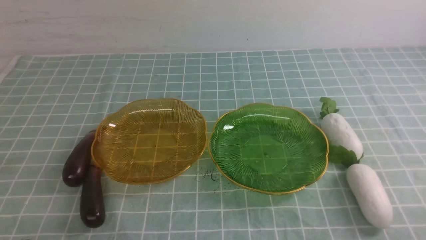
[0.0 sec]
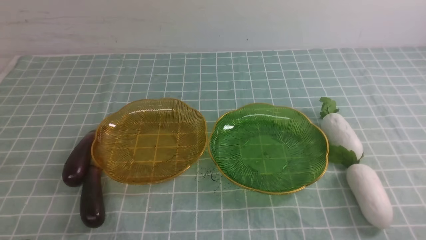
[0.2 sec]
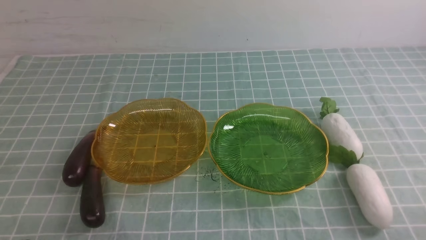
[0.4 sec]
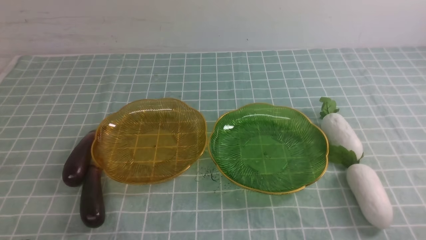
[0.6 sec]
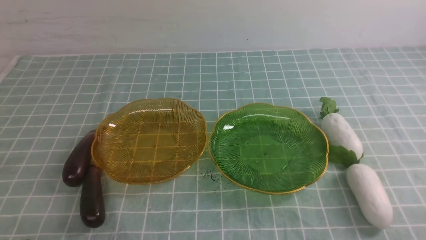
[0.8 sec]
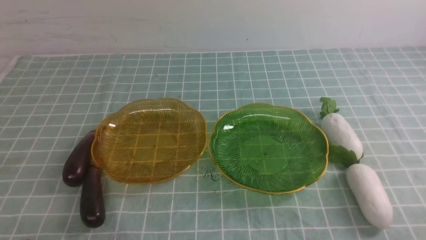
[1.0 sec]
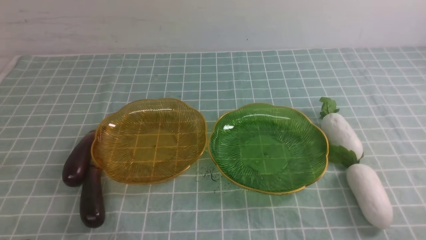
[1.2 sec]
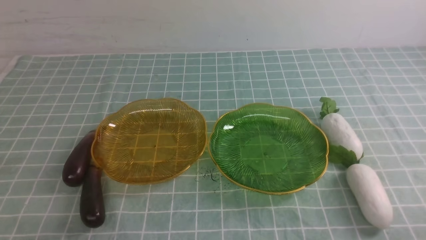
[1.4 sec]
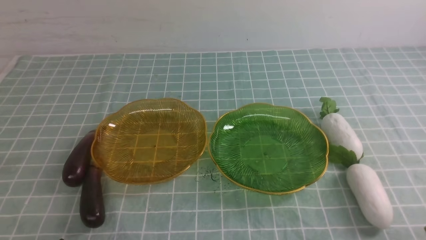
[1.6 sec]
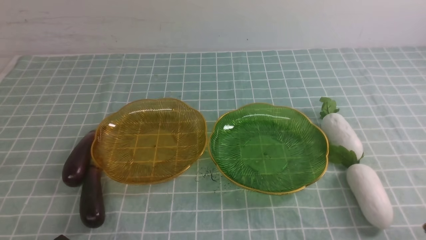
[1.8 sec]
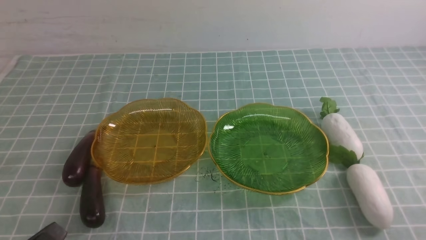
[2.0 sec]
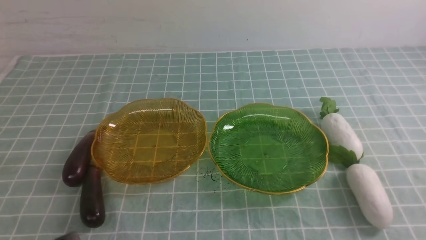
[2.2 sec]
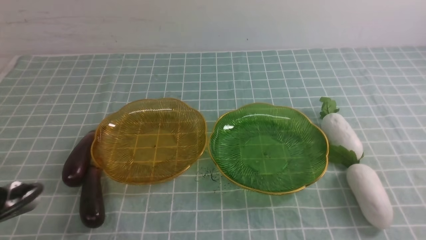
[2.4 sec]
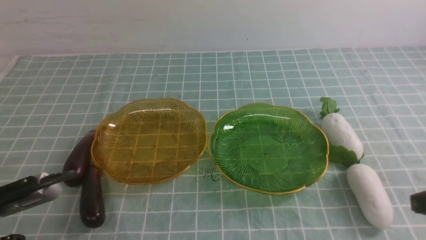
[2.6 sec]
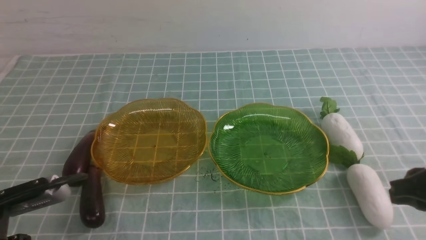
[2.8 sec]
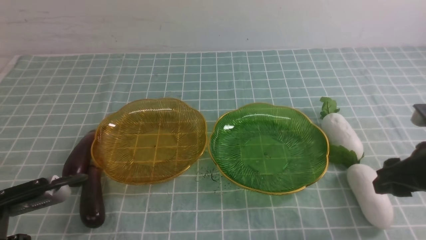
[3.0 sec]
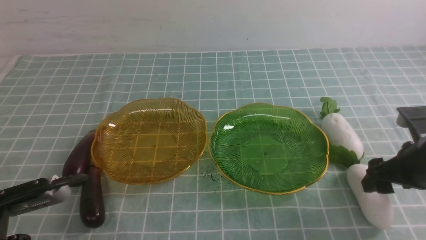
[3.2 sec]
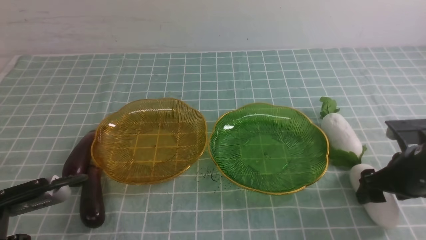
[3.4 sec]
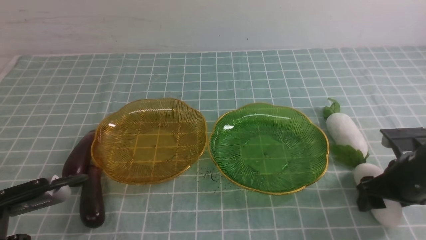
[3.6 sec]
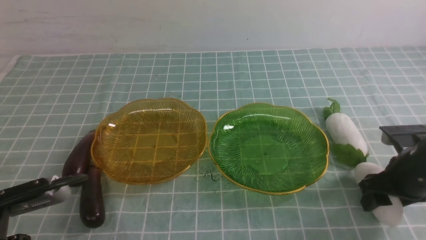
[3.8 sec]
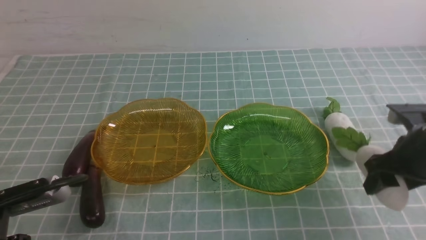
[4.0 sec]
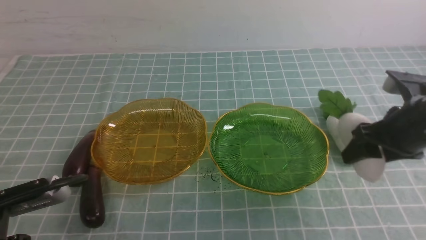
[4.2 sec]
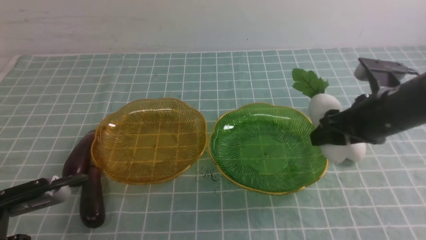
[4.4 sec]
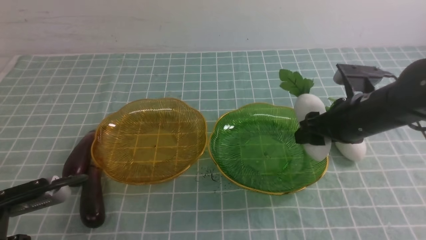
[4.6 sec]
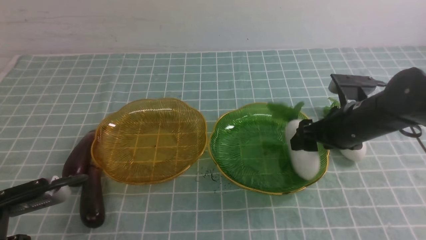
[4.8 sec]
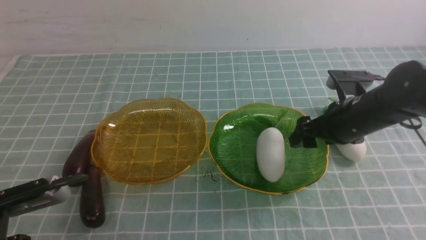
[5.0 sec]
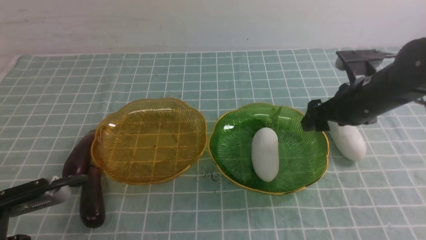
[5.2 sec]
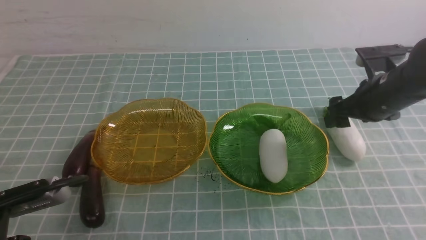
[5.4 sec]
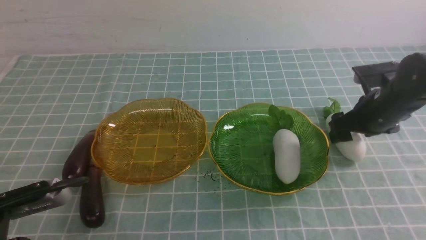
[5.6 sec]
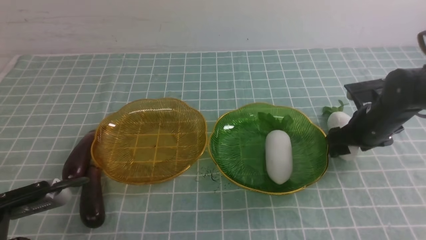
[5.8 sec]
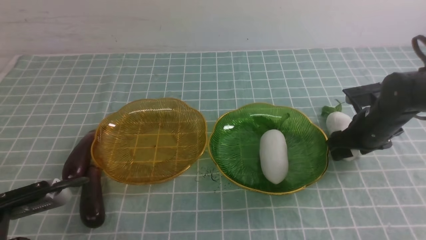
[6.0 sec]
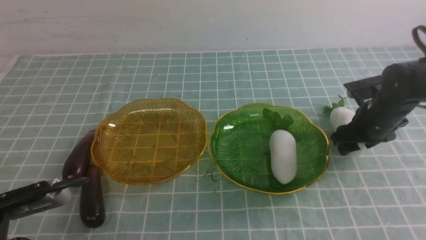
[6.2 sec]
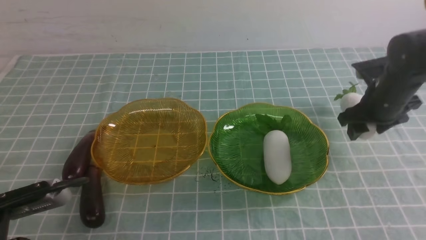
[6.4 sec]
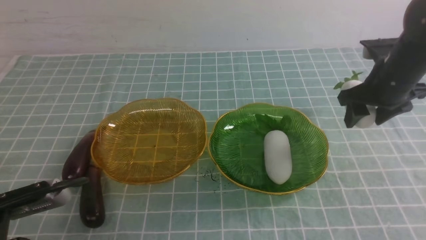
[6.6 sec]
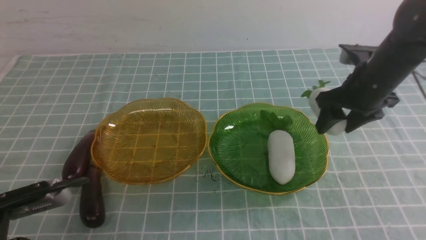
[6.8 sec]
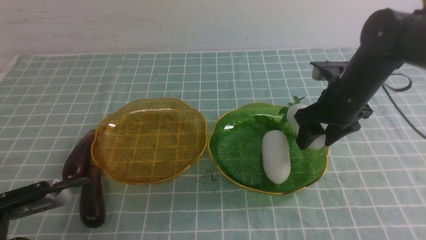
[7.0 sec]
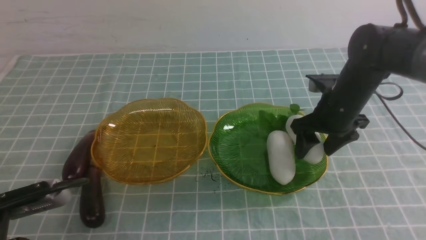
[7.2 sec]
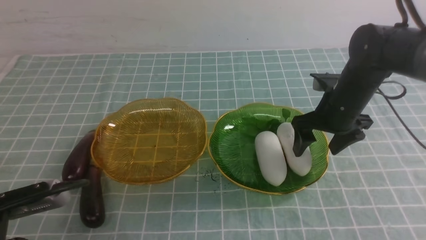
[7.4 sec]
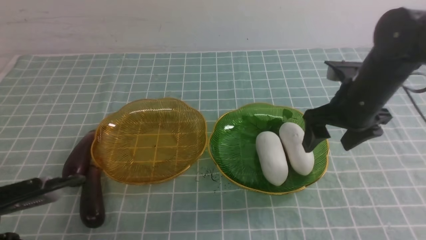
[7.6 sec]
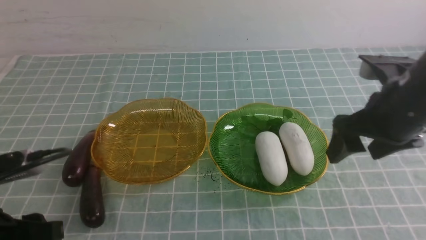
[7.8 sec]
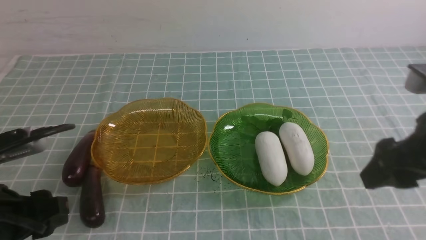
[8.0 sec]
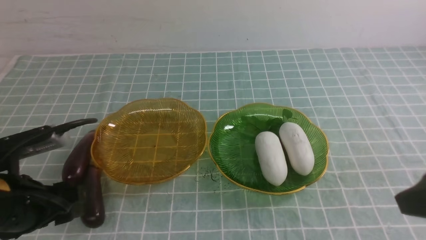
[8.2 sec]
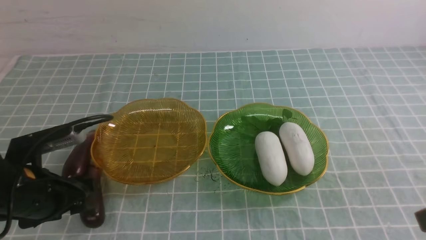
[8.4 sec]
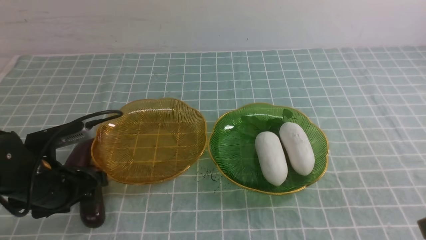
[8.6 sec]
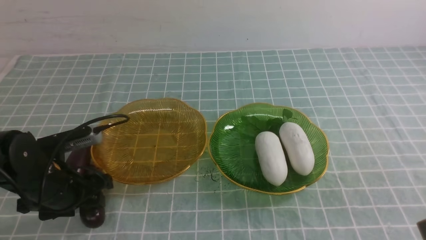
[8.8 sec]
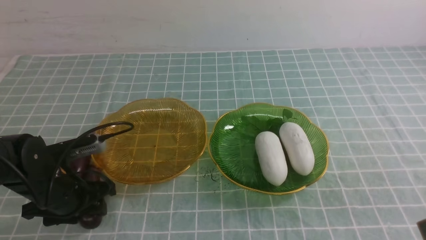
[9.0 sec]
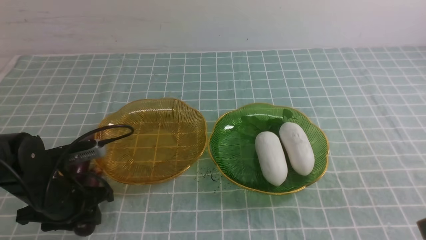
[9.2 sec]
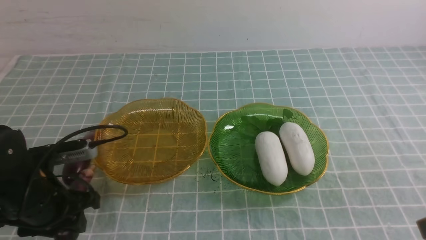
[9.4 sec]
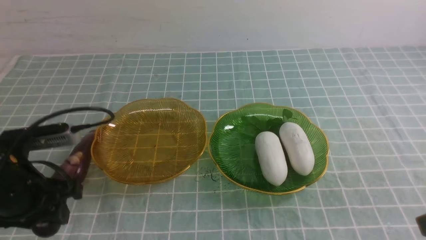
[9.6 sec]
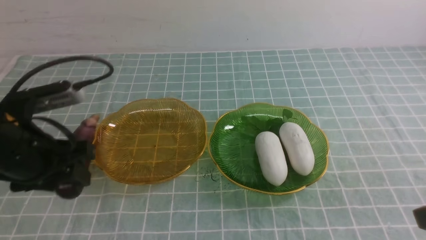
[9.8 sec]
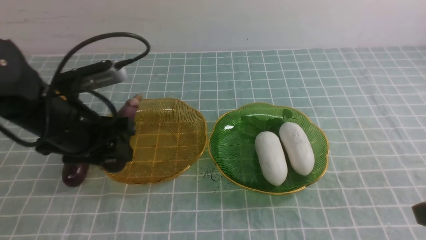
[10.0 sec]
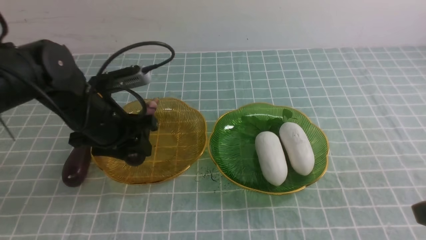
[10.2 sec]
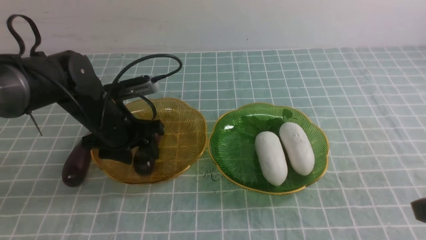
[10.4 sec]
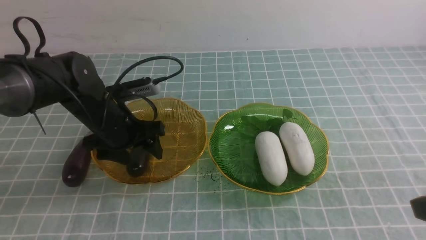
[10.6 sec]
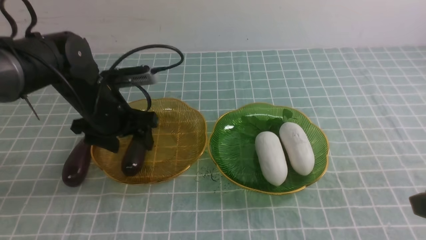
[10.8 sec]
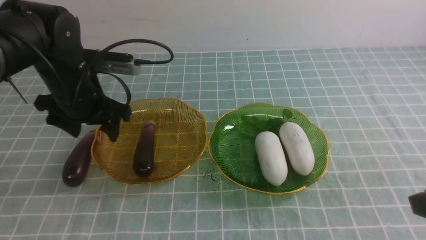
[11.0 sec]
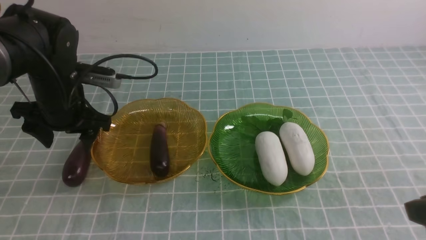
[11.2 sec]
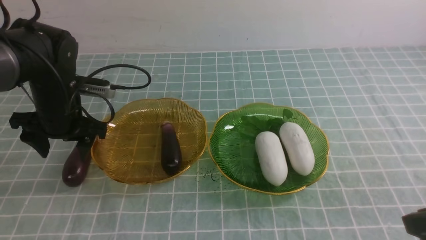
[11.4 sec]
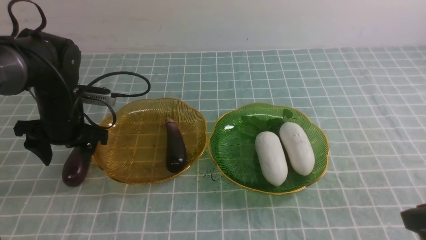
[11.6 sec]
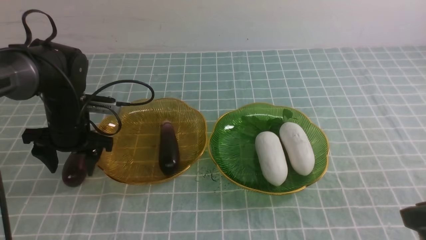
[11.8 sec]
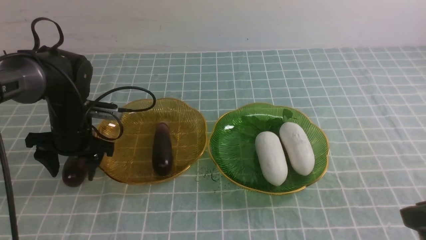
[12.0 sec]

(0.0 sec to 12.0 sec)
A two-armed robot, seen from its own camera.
Step, 0.0 sec - 7.4 sec: use the right arm to grab a radish and put it into the right plate.
Step, 7.6 sec - 10.6 sec: use the left arm to grab an eggplant and put it into the left plate.
1.6 sec - 3.0 sec: The right gripper heads forward, covering roughly 20 cm, and opens up, while the left gripper shifts some 10 cm forward and upward.
3.0 sec - 4.4 sec: The right gripper travels forward and to the left by some 10 cm, and moves approximately 5 cm downward and comes back.
4.4 sec - 6.0 sec: The right gripper moves downward and forward, some 10 cm.
6.0 sec - 7.6 sec: The right gripper goes approximately 15 cm upward, to the left and backward.
7.6 sec - 9.0 sec: The left gripper heads forward and downward, covering roughly 15 cm. Meanwhile the right gripper is displaced backward by roughly 20 cm, and closes.
9.0 sec - 10.4 sec: The left gripper heads forward, to the right and upward, covering about 15 cm.
10.4 sec - 12.0 sec: The left gripper is displaced to the left by some 5 cm.

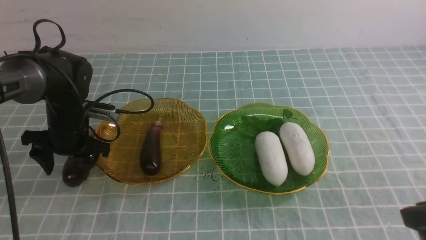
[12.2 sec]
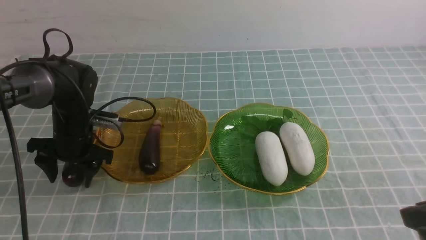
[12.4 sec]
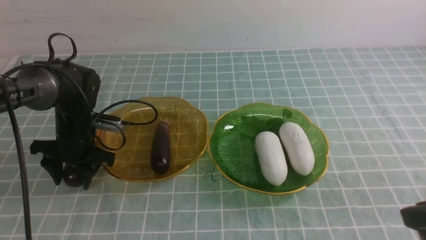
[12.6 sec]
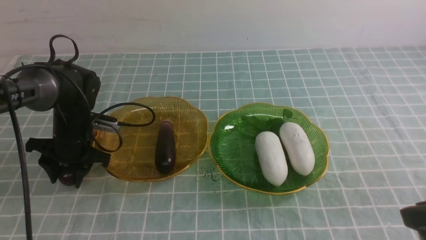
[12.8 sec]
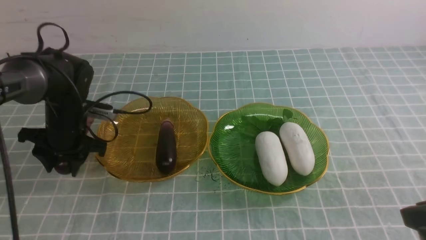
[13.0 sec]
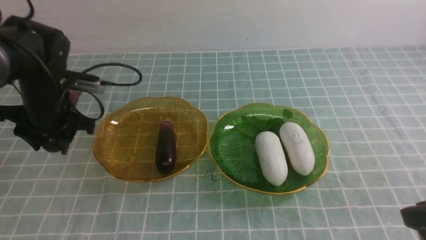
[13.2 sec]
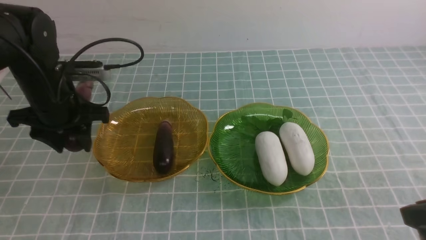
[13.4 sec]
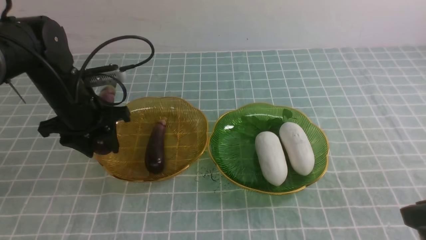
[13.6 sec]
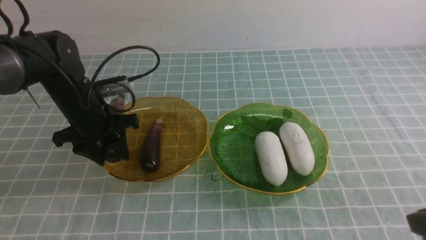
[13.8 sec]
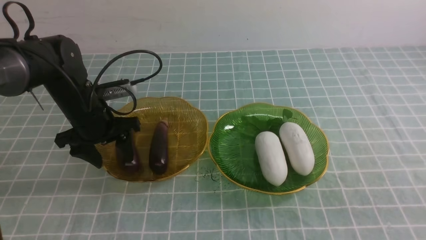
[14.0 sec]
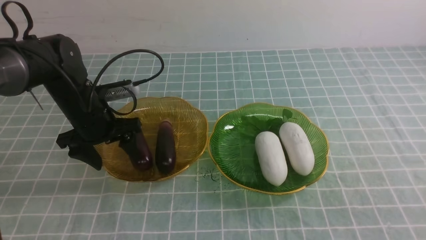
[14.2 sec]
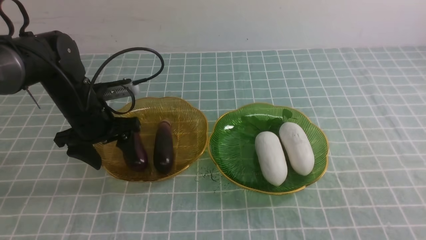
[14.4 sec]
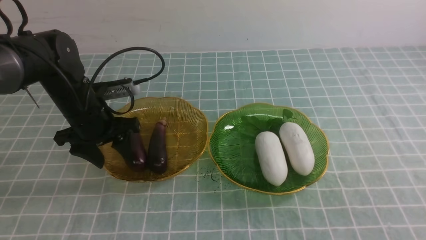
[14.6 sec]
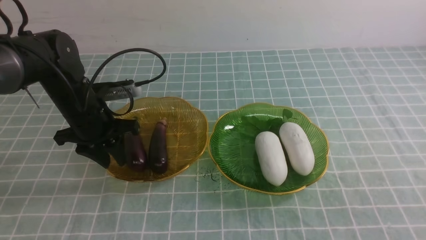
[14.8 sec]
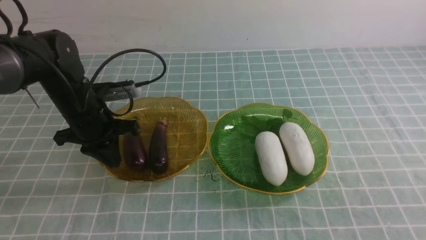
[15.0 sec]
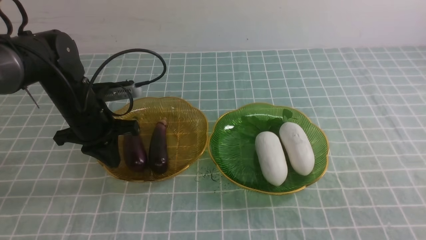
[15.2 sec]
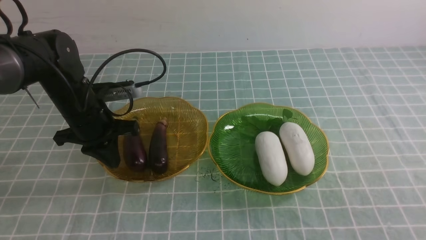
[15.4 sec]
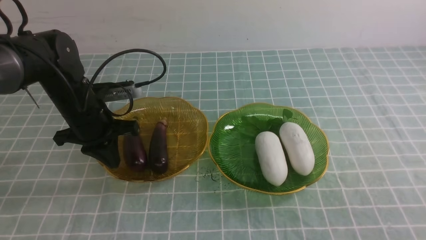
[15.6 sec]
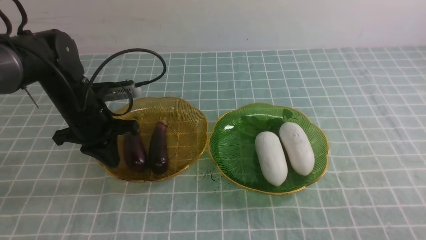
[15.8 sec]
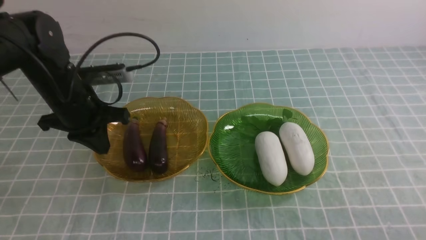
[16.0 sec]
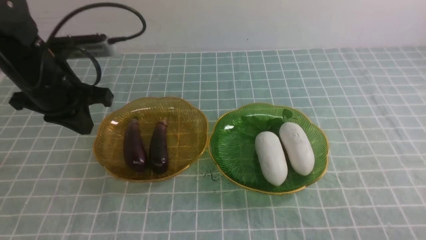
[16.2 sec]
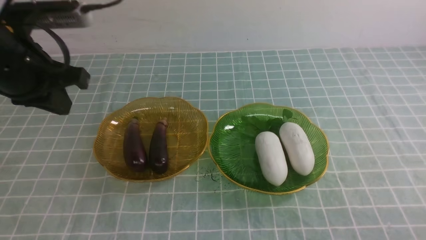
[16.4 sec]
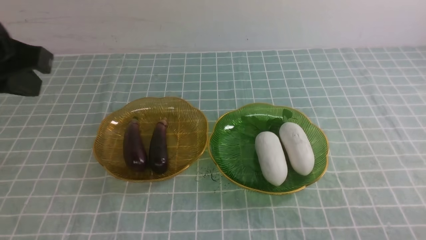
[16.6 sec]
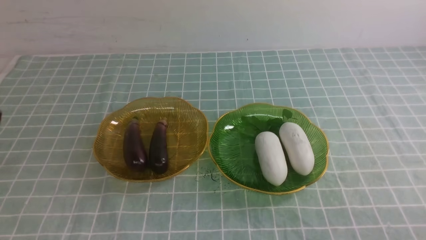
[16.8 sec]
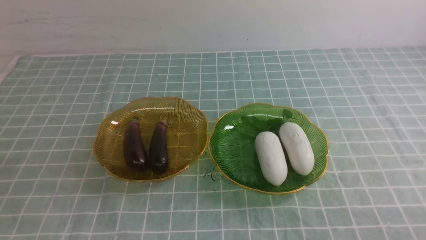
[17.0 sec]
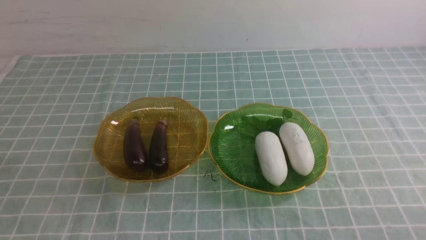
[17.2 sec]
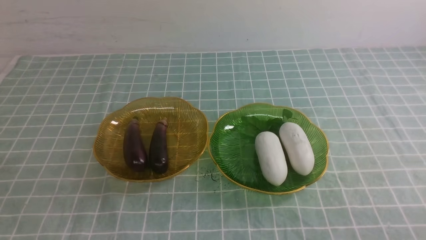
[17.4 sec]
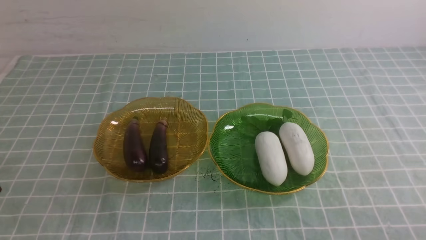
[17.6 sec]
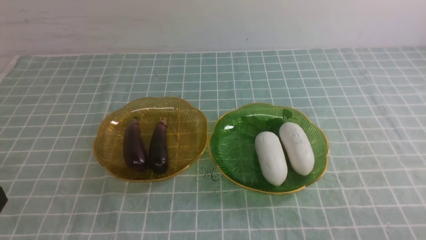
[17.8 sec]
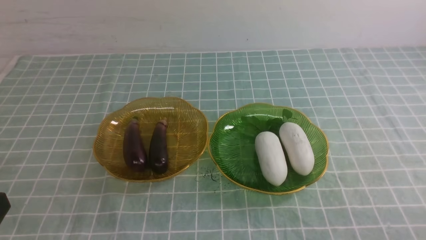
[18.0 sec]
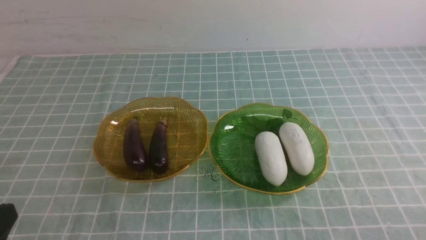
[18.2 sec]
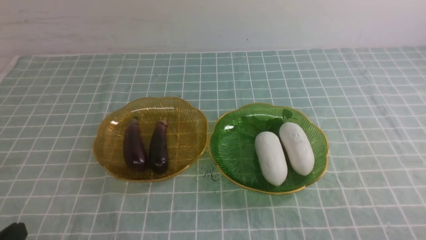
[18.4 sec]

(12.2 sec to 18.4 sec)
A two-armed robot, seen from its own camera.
Step, 12.2 sec - 14.2 sec: use the left arm to grab an eggplant and put it into the left plate.
12.2 sec - 13.8 sec: The left gripper moves some 5 cm.
13.8 sec - 15.4 sec: The left gripper closes. Meanwhile the right gripper travels backward by some 5 cm.
15.4 sec - 16.8 sec: The left gripper moves backward and upward, about 30 cm.
